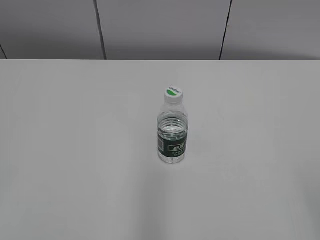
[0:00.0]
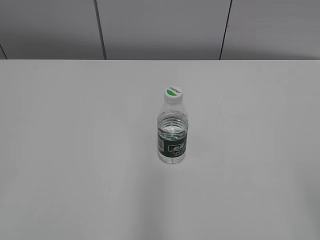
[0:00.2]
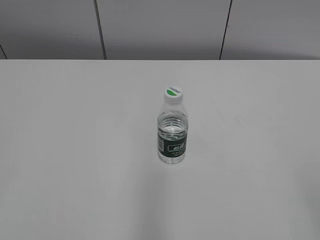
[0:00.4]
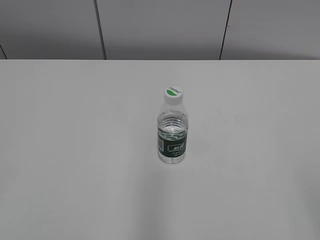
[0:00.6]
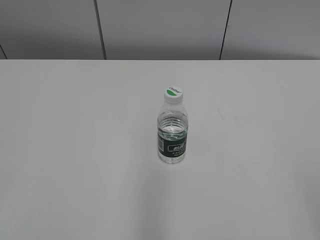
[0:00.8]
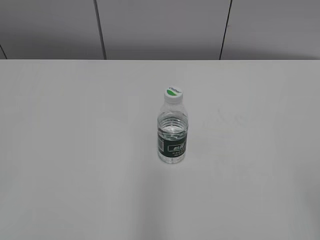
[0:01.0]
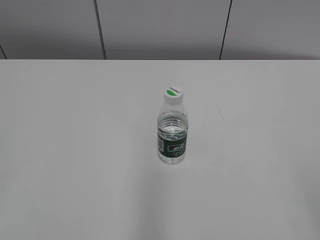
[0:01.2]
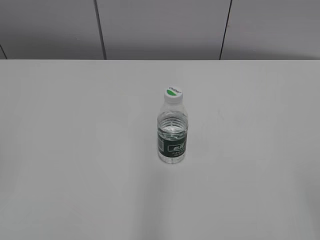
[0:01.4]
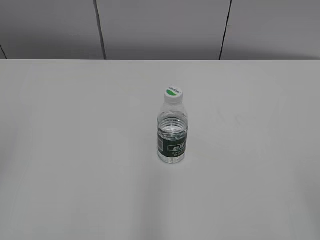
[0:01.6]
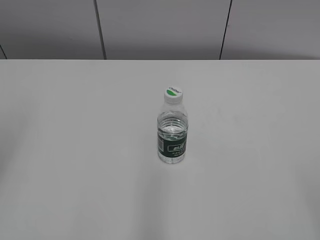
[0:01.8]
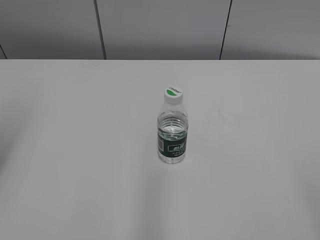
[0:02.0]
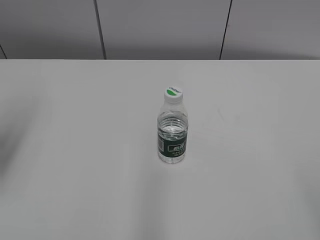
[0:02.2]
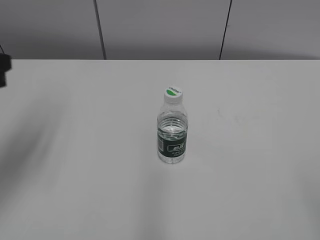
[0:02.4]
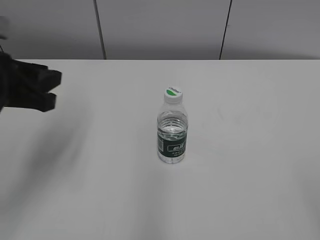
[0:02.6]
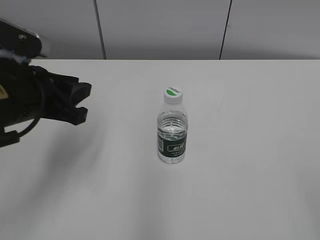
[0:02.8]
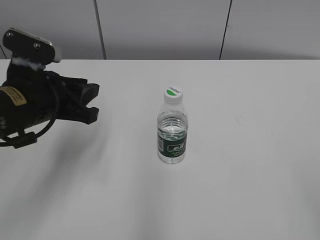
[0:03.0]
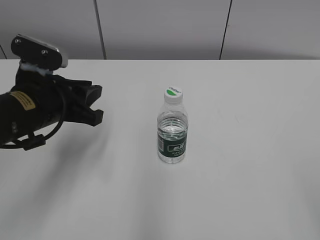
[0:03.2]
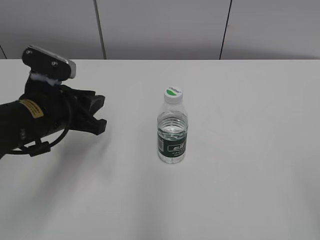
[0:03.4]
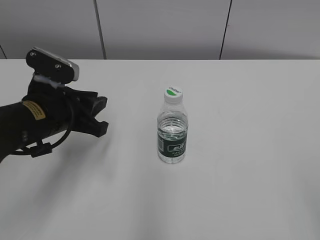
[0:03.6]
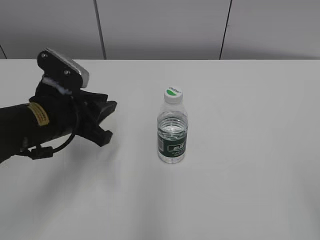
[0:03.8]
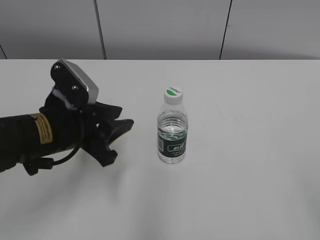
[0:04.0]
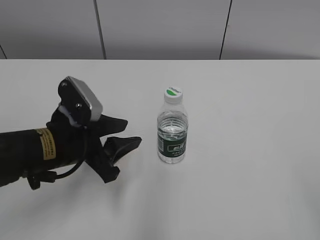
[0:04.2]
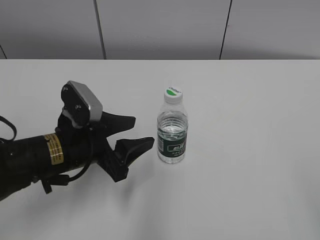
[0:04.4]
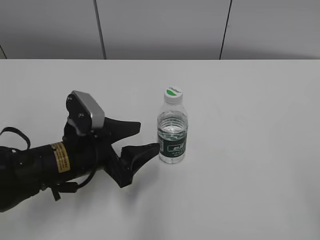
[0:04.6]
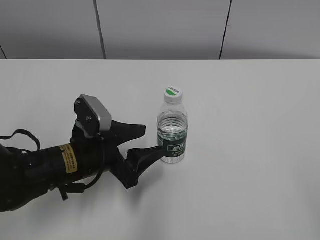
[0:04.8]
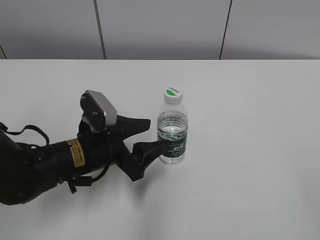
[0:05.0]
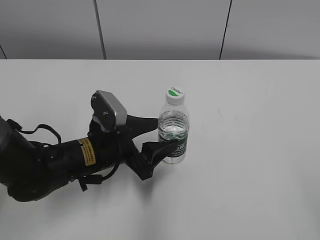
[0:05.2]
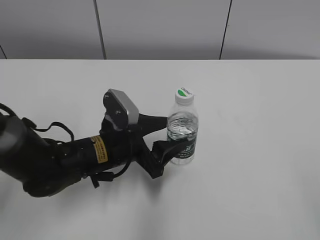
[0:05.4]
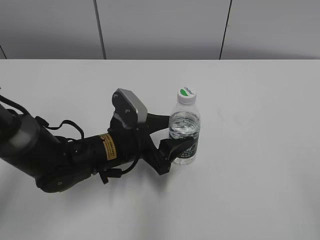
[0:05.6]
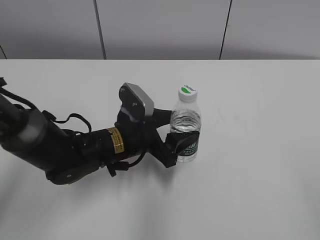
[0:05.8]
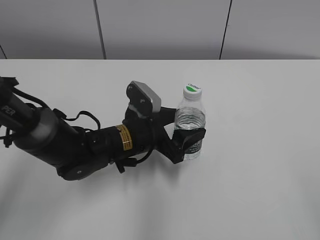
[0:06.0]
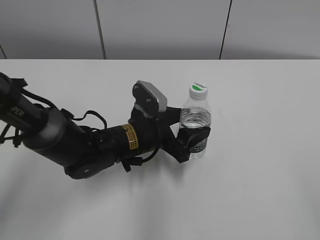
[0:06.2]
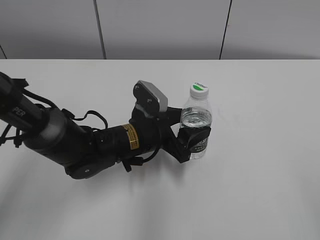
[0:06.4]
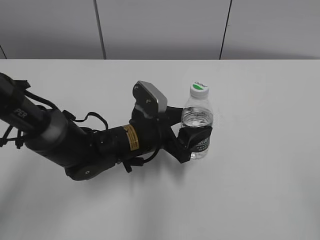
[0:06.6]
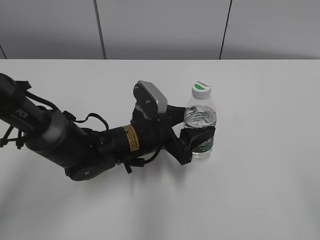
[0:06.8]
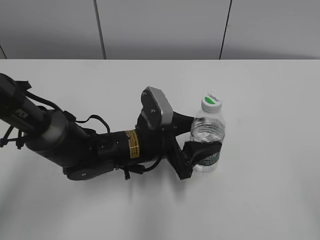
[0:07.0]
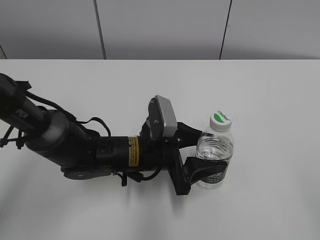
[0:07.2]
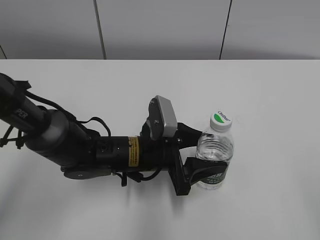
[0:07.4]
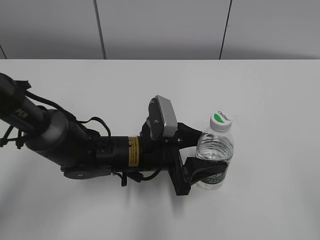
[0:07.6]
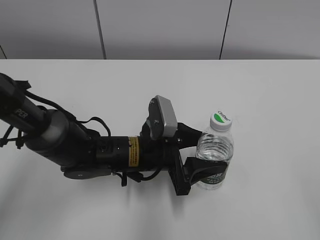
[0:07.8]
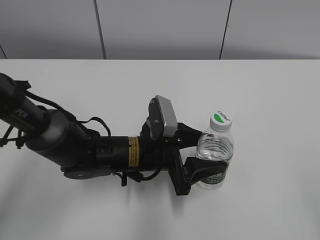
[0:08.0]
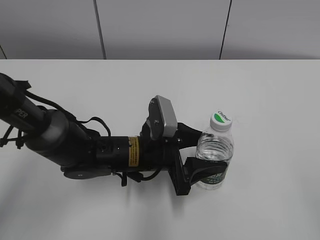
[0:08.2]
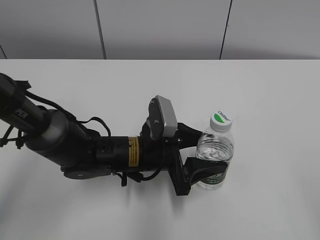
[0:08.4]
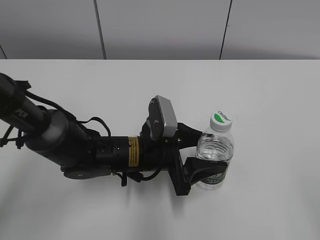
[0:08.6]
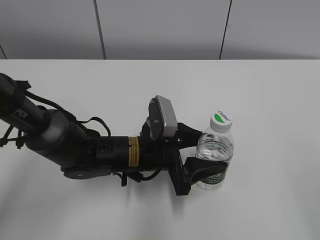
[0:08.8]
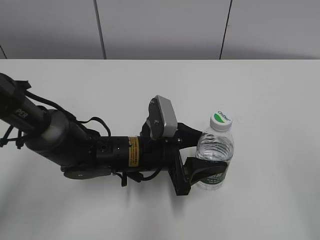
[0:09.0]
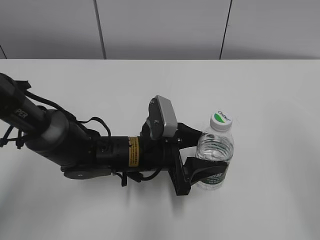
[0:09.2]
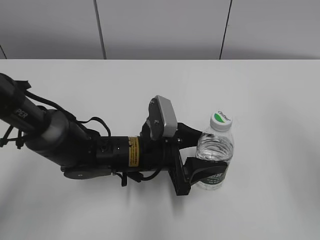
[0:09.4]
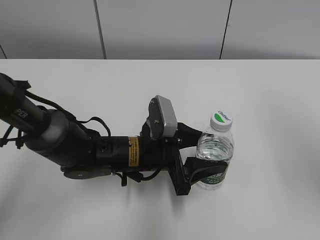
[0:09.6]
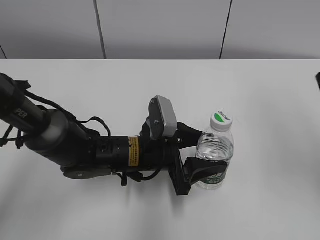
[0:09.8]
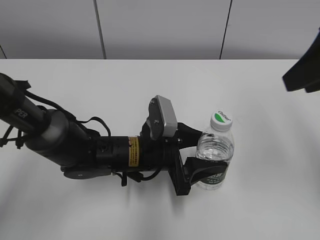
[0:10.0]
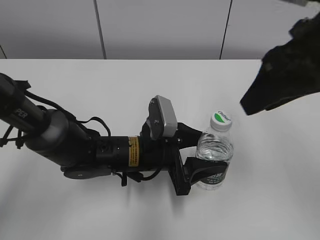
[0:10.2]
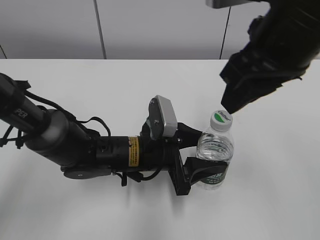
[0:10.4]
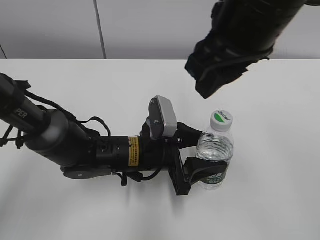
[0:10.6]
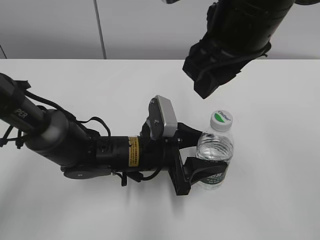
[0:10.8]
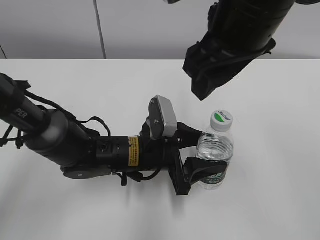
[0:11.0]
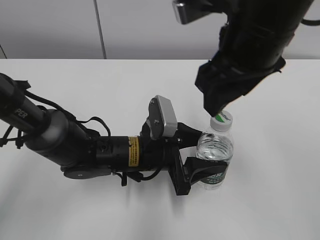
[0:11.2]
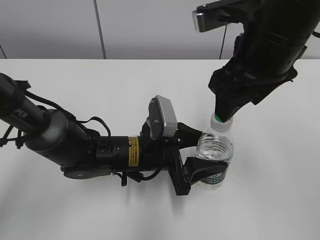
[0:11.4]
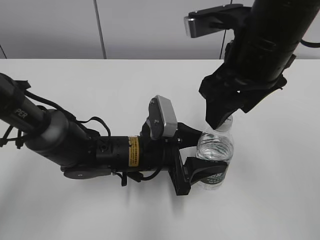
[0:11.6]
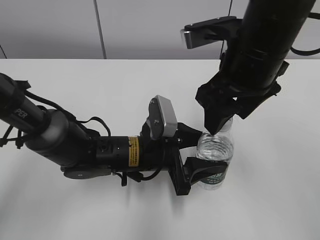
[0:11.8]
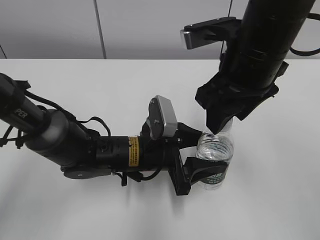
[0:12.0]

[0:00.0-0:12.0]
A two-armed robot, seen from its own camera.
Step, 0:00.0 to 0:06.4: Grab the C'estbon with the left hand.
Step, 0:06.6 to 0:07.8: Move the C'estbon to the right with the left hand.
0:01.6 to 0:03.0: The left gripper travels forward, to the right and downward by about 25 cm.
0:03.0 to 0:04.4: The left gripper goes about 5 cm downward, and opens.
0:04.4 to 0:06.0: The left gripper heads to the right and forward, covering roughly 10 cm.
0:09.0 to 0:10.4: The right gripper is displaced forward and to the left by about 25 cm.
0:10.4 to 0:12.0: The right gripper is displaced downward by approximately 5 cm.

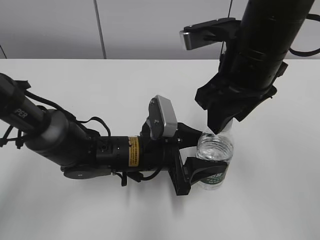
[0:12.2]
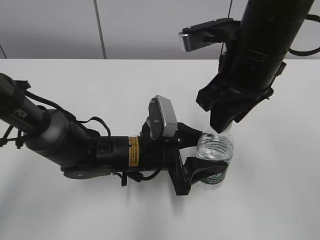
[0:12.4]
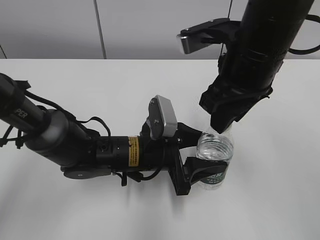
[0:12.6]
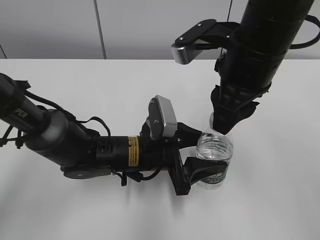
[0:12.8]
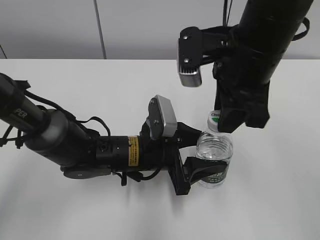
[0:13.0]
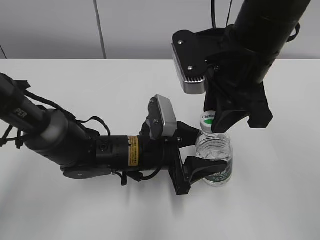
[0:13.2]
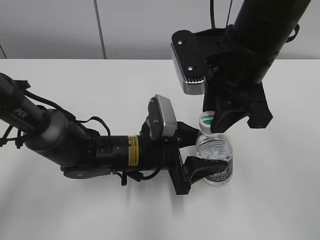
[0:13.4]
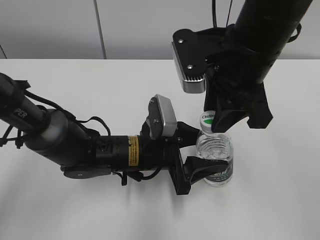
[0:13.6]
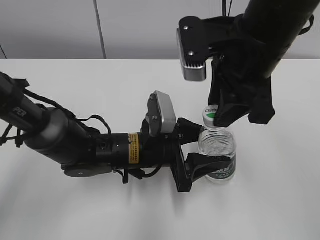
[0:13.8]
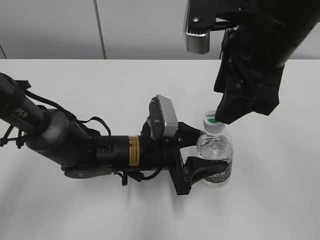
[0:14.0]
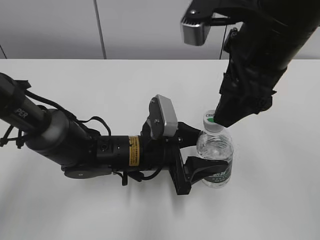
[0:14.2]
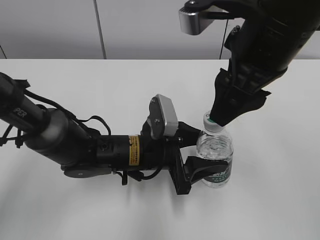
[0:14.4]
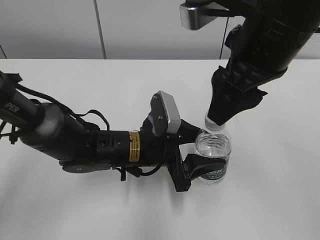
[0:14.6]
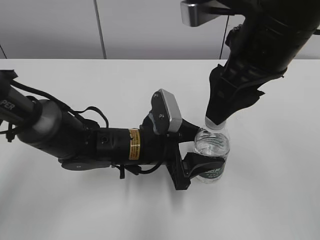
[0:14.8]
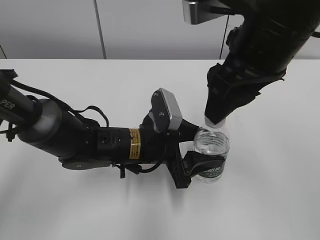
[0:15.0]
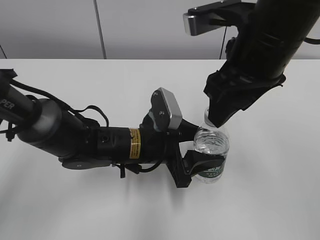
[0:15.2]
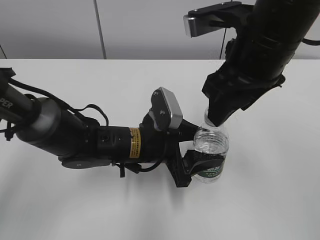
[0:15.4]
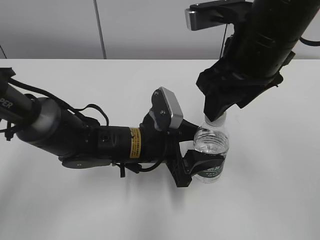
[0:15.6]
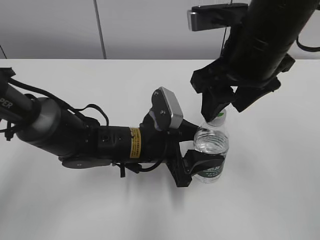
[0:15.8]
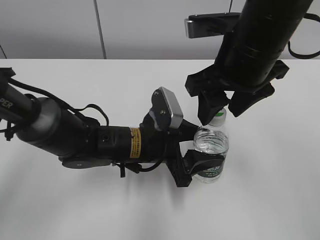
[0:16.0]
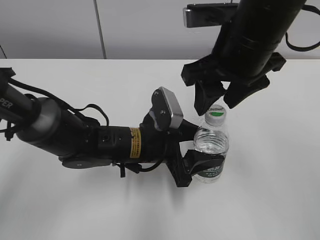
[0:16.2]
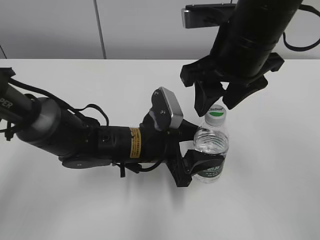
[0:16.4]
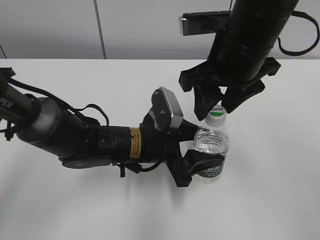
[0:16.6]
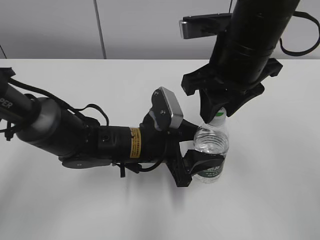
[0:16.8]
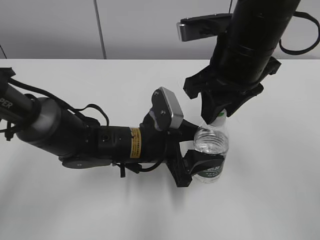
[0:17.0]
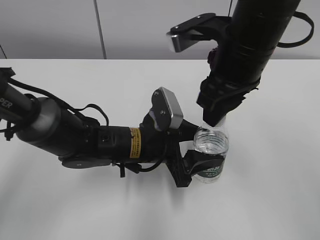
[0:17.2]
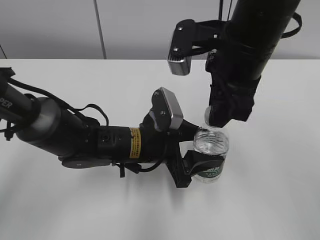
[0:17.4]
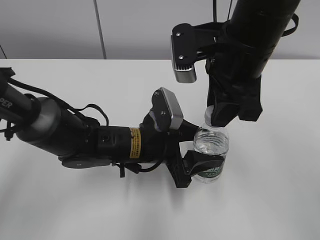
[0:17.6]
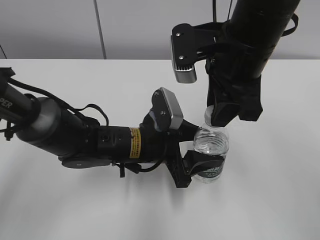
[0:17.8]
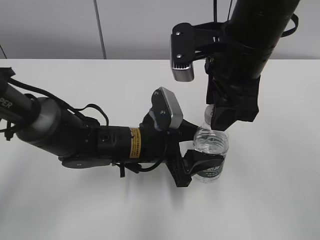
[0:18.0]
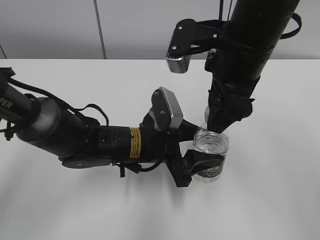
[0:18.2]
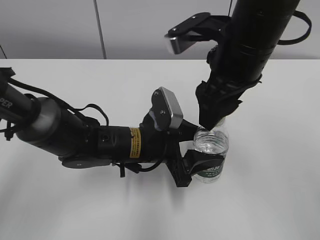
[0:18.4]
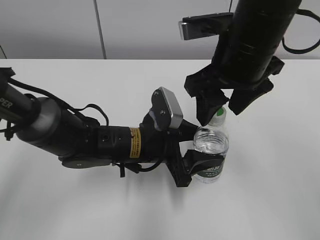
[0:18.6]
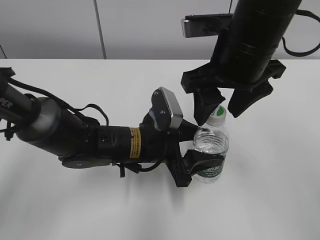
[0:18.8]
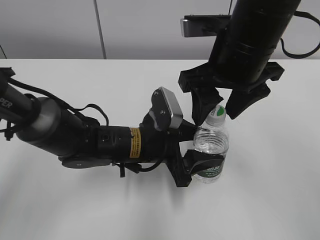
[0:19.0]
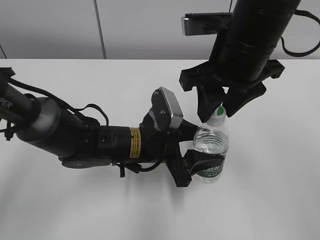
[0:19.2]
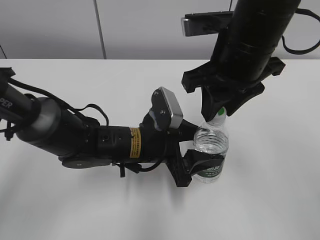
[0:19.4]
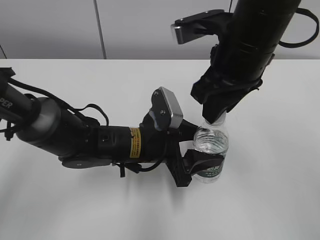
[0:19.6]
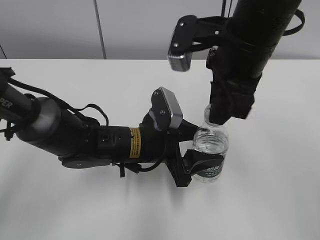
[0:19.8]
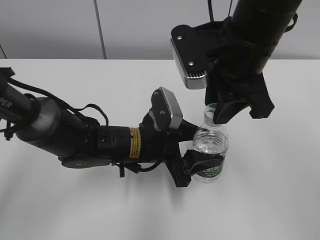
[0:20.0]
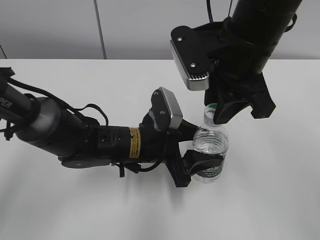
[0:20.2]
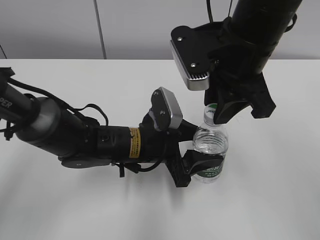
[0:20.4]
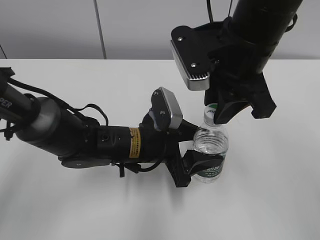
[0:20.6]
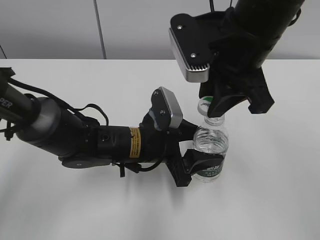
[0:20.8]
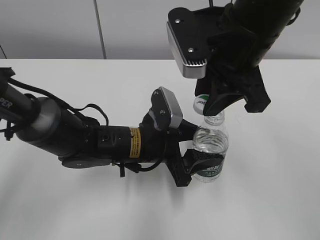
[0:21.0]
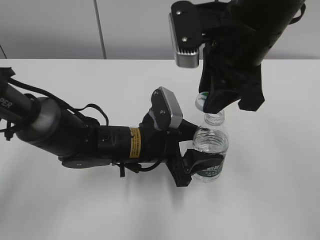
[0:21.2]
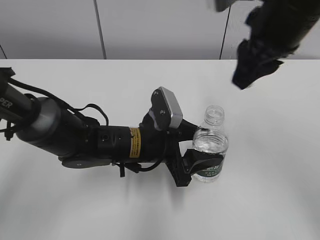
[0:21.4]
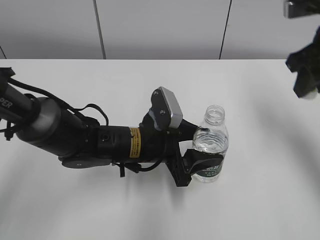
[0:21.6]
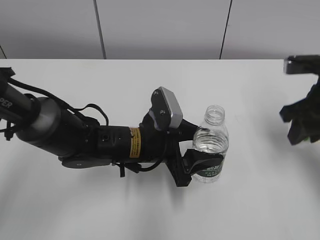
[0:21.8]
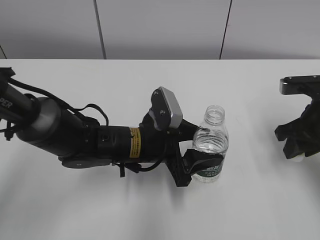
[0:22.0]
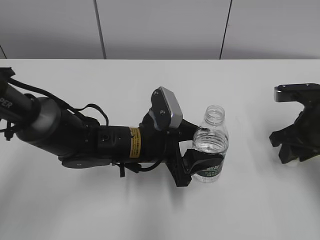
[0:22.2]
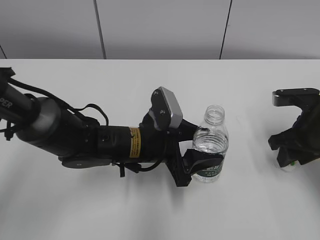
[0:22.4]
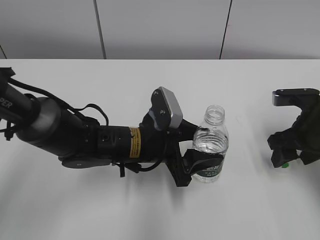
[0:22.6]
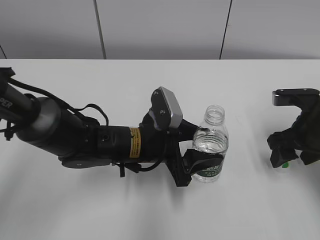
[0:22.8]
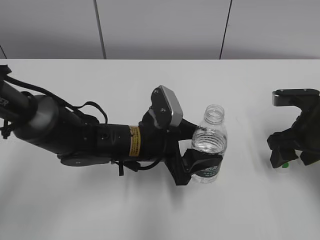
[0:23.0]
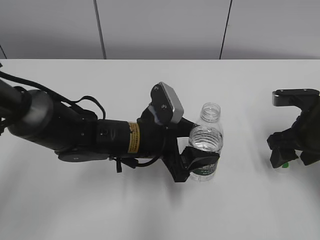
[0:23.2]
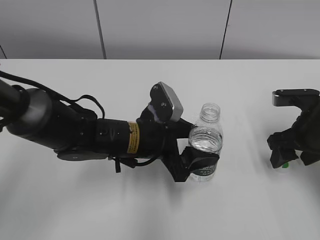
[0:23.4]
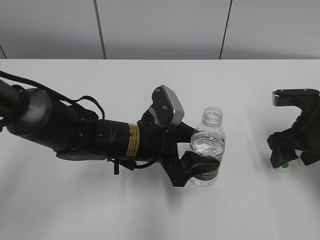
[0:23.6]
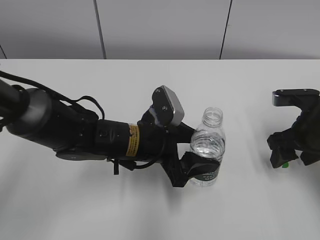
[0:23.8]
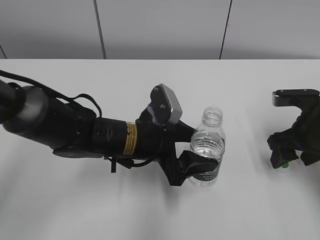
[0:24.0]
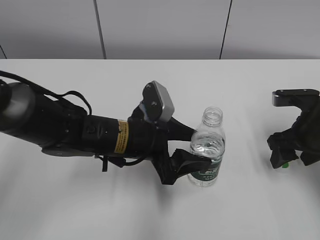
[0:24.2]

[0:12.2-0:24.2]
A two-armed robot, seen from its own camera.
Step, 0:12.2 to 0:20.6: Secure the C'estbon with the left hand.
Step, 0:20.8 to 0:22.6: Place the bottle cap on the table with the right hand.
Step, 0:22.8 to 0:24.0: Place the C'estbon with the left hand.
0:15.2 to 0:16.6: There are only small adjustments of the grippers.
0:18.2 to 0:19.8: The right gripper closes its fingers.
0:21.2 to 0:22.6: The right gripper travels to the right and downward by roughly 25 cm, and opens up.
0:22.6 to 0:24.2: The grippers make only small movements.
